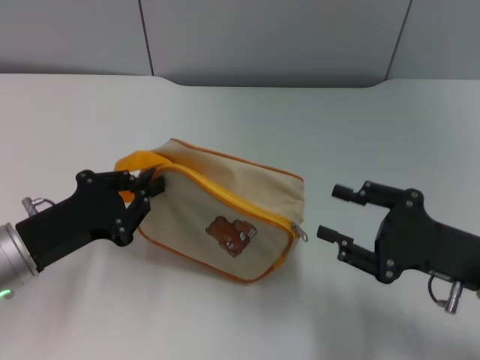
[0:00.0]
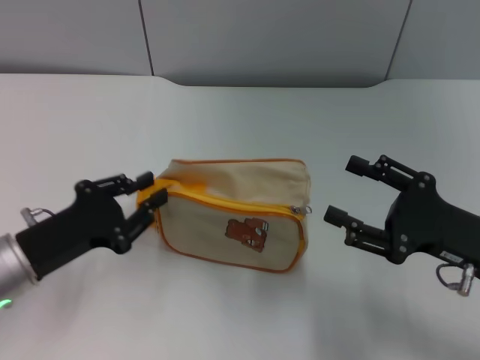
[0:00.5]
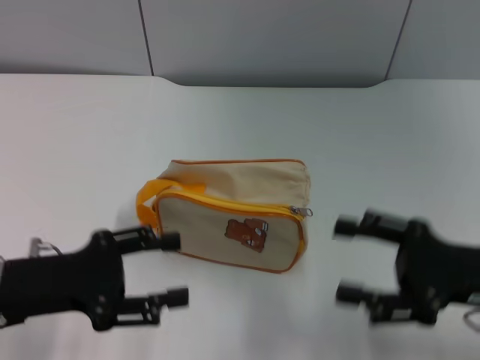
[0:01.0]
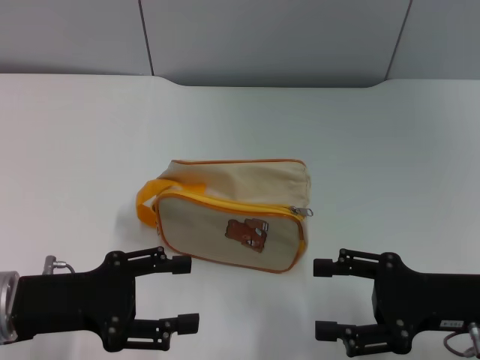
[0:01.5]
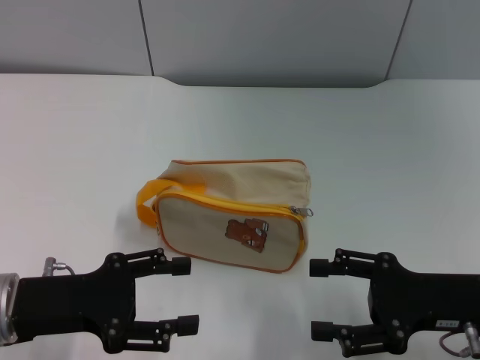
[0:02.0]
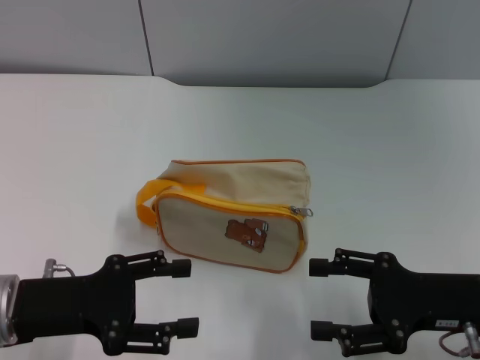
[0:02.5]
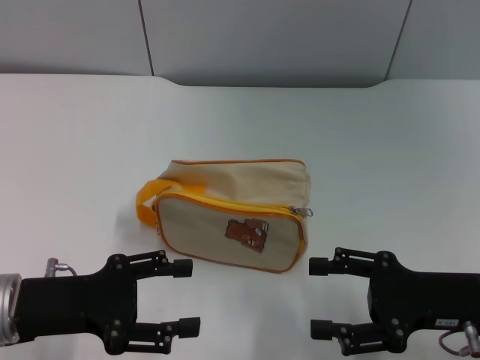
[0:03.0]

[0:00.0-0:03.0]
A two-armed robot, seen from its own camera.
Step, 0:00.0 to 0:00.5: Place the bag on the table with left gripper.
0:00.0 to 0:01.5: The right gripper opens its fingers; the left gripper opens its fingers.
0:01.5 to 0:03.0: Both grippers stay about where they are.

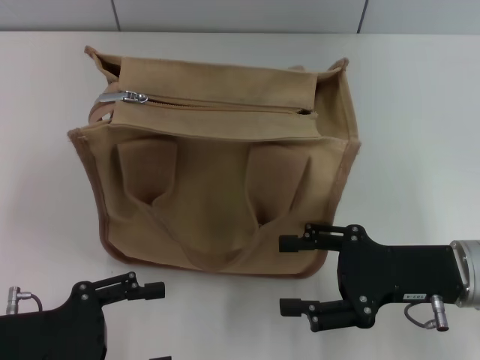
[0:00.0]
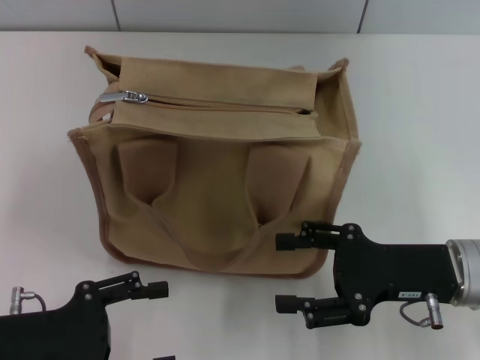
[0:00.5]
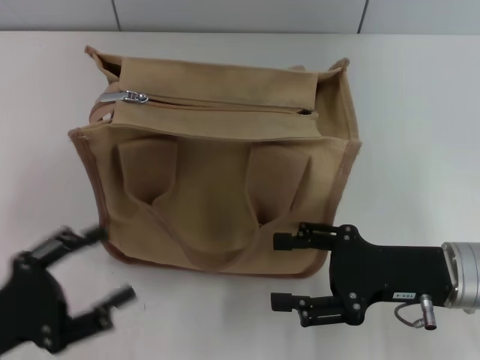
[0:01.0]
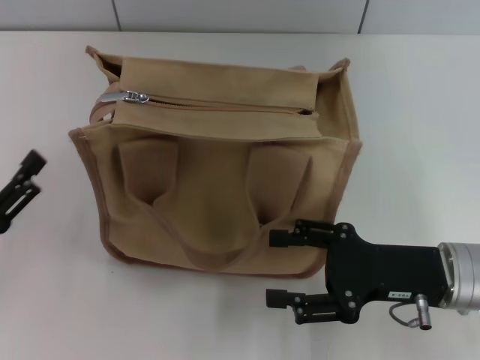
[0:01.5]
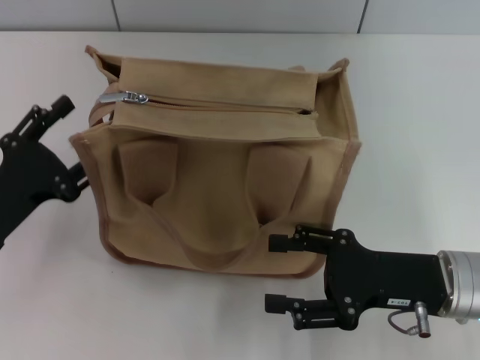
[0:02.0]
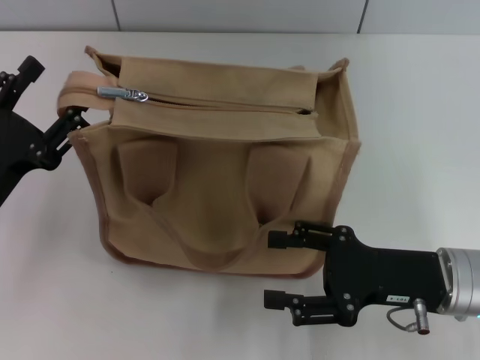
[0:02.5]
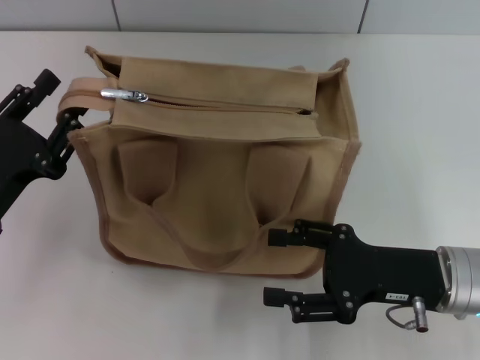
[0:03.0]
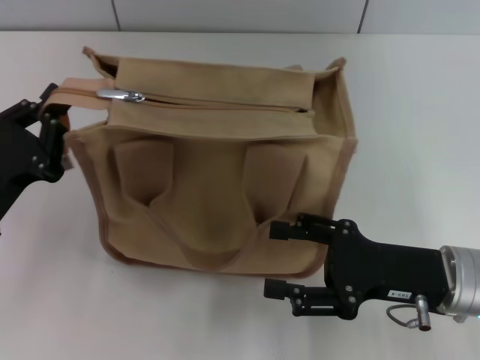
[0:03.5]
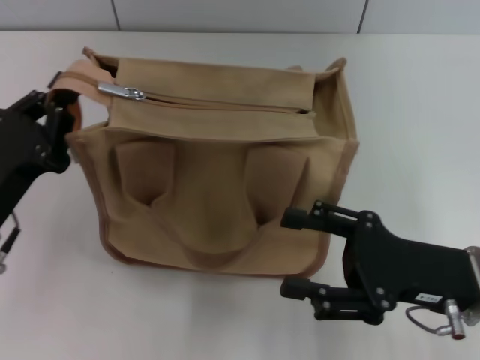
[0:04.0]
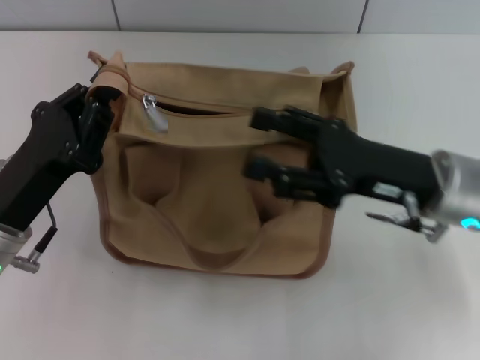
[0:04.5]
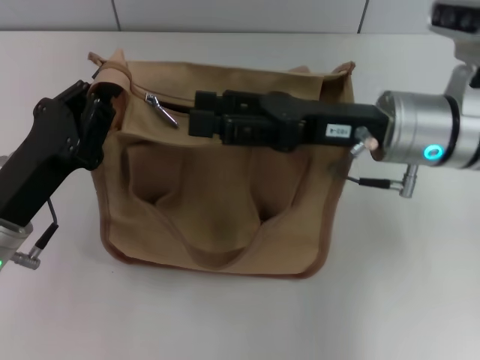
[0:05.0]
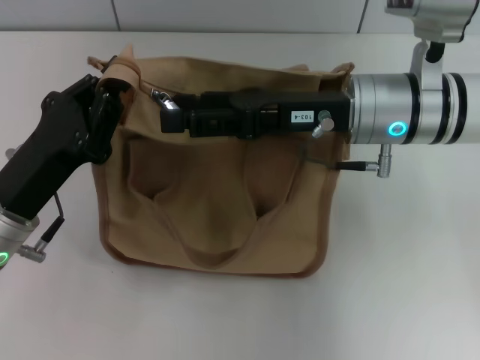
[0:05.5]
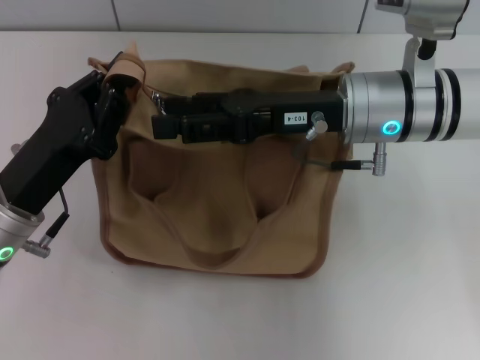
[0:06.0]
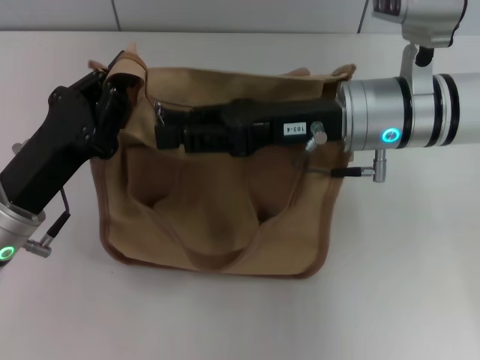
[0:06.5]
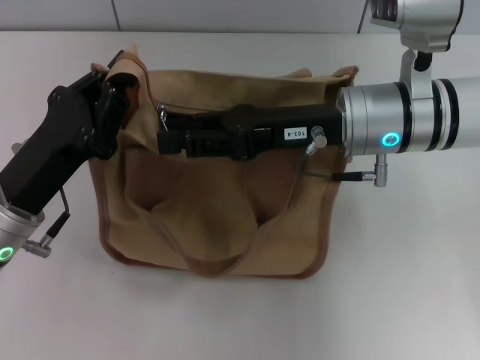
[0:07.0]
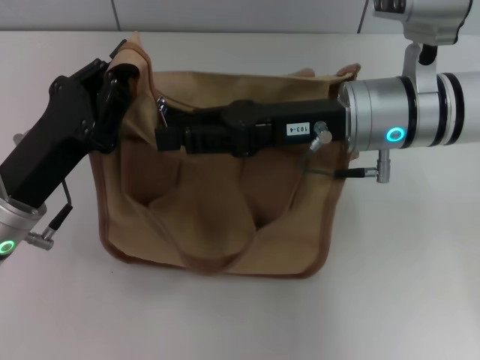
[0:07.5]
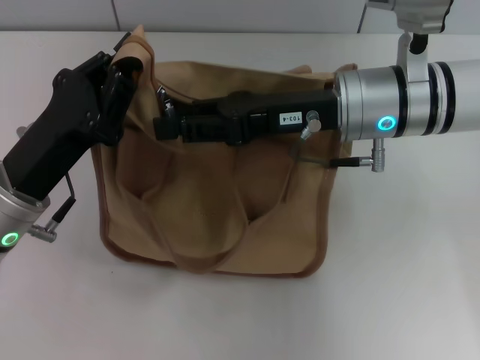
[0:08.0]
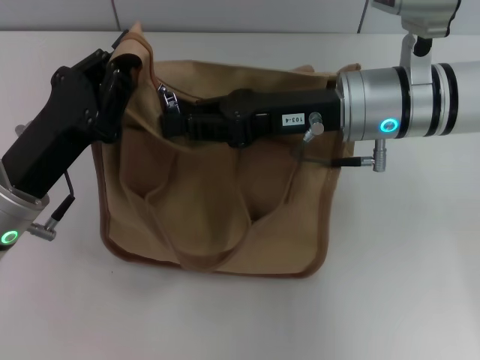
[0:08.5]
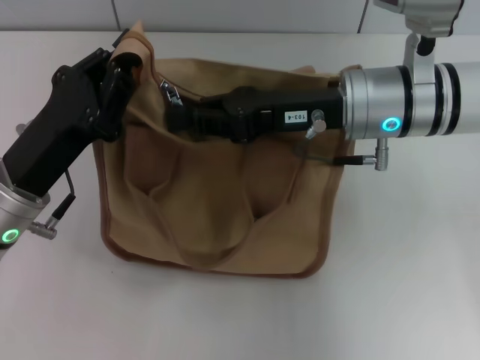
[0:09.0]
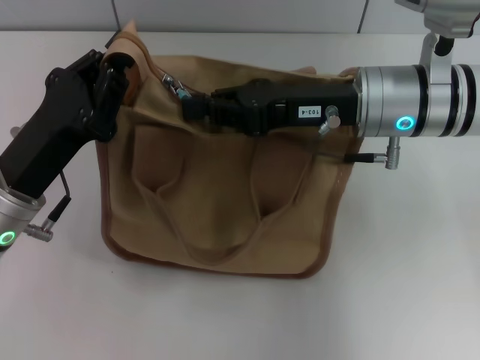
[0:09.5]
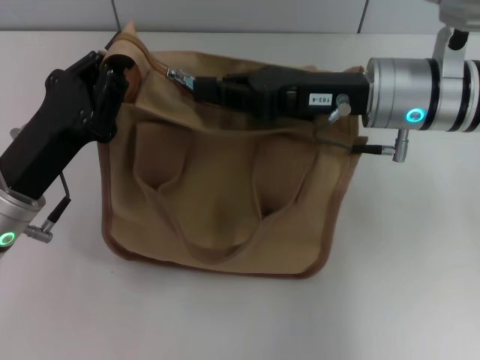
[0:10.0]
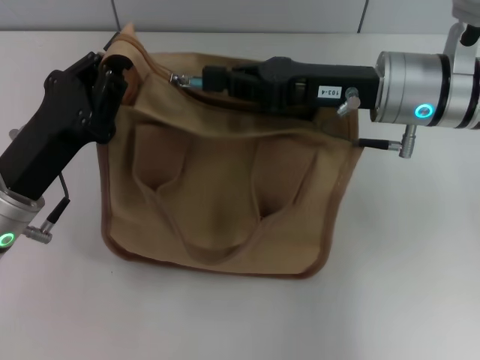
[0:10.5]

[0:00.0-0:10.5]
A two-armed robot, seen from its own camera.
0:00.0 to 0:02.0: The left gripper is displaced forward by approximately 5 cm.
0:02.0 to 0:04.0: The left gripper closes its fingers.
0:04.0 to 0:06.5: The right gripper is displaced forward, to the left and upward by roughly 20 cm.
0:06.5 to 0:08.5: The right gripper closes its fingers.
0:08.5 to 0:10.5: The grippers stay close to where they were, moving slightly.

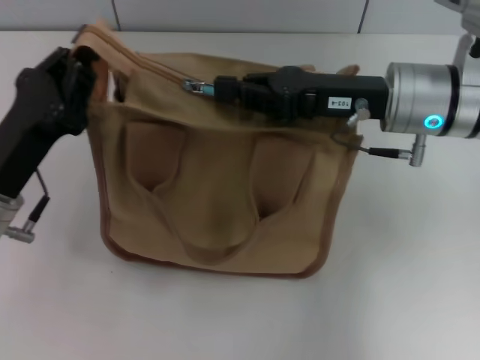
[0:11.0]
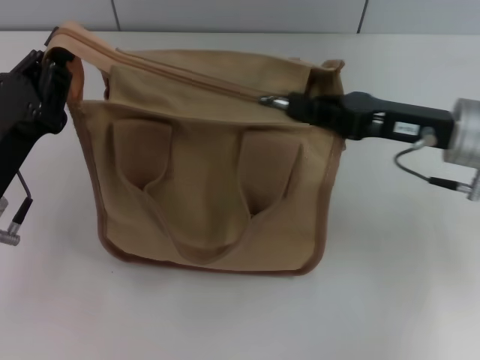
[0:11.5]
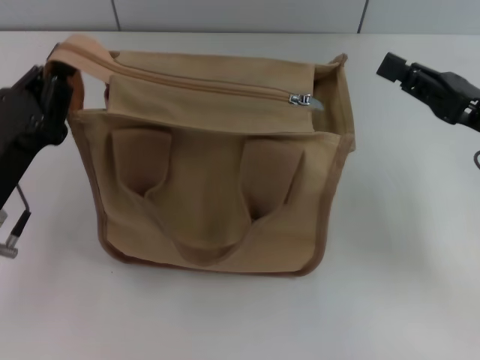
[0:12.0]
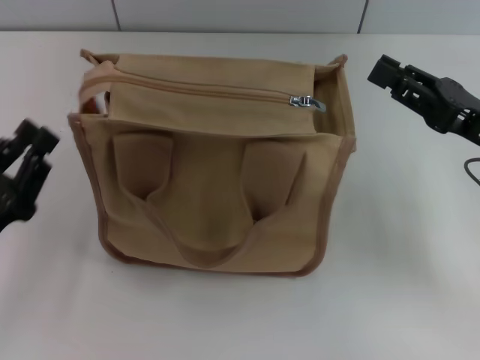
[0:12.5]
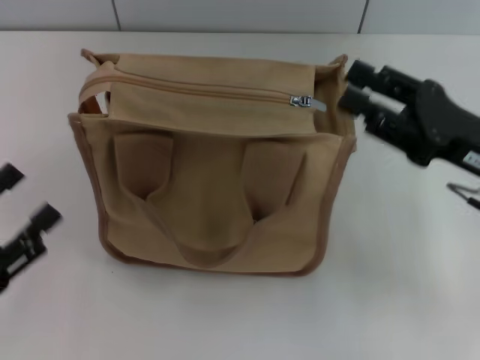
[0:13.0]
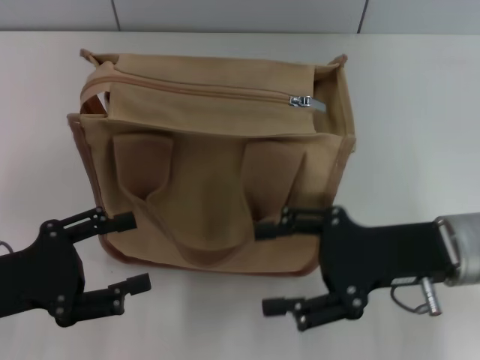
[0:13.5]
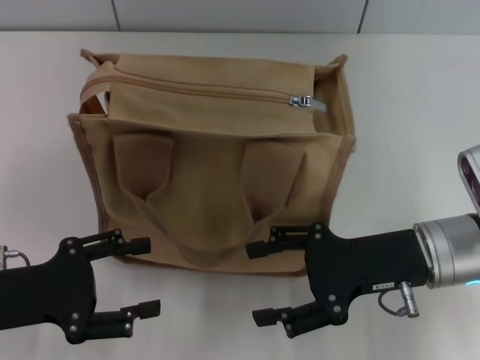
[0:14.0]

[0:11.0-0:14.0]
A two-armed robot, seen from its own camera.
0:11.0 to 0:12.5: The left gripper heads backward and to the left, covering some 10 cm. Meanwhile the right gripper shifts some 15 cm to the right and backward.
0:12.5 to 0:14.0: The left gripper opens up. Meanwhile the right gripper travels to the left by about 10 cm, and opens its fingers.
